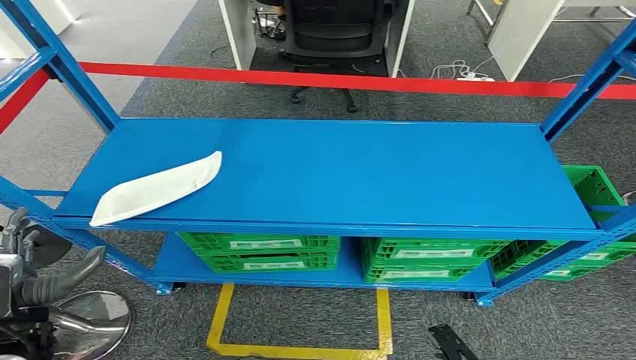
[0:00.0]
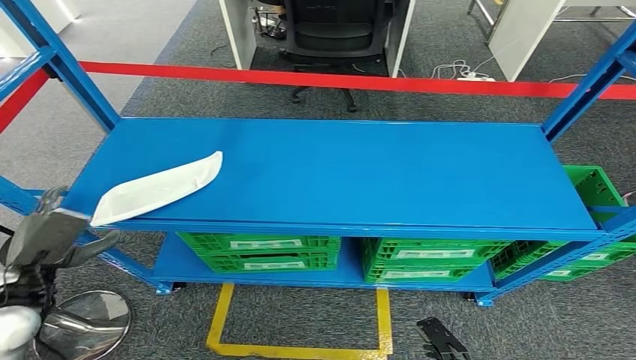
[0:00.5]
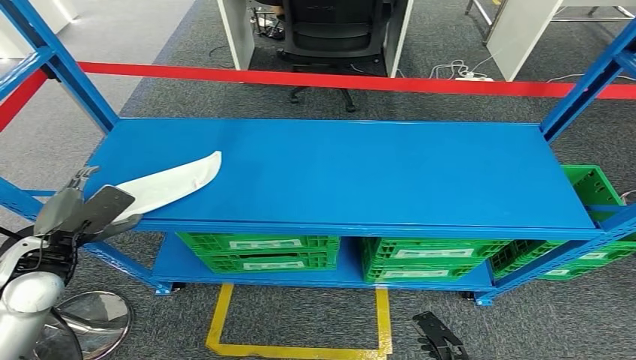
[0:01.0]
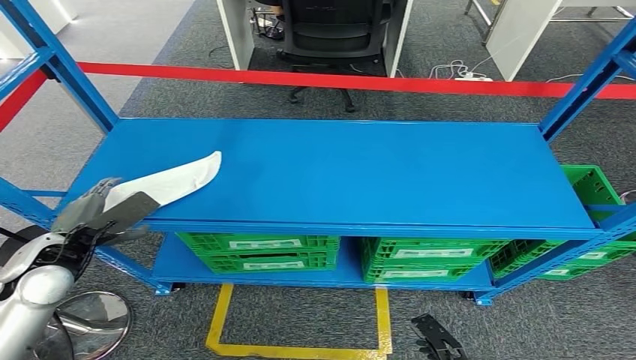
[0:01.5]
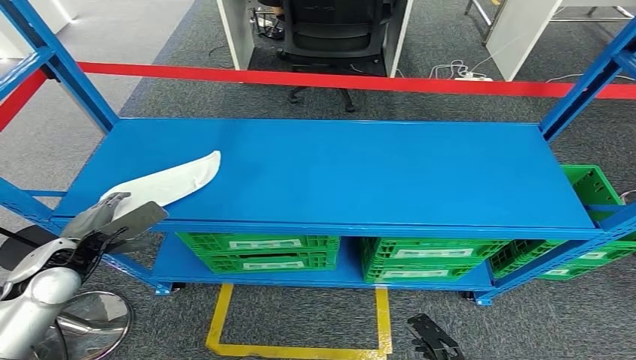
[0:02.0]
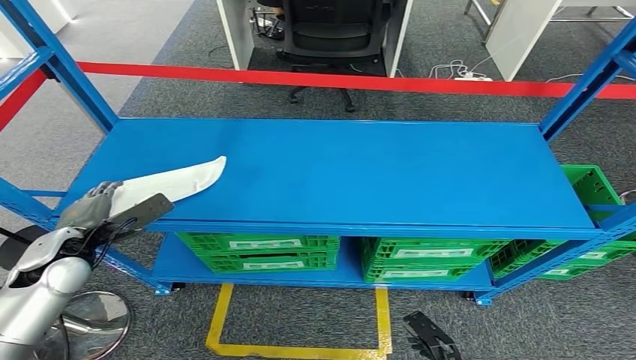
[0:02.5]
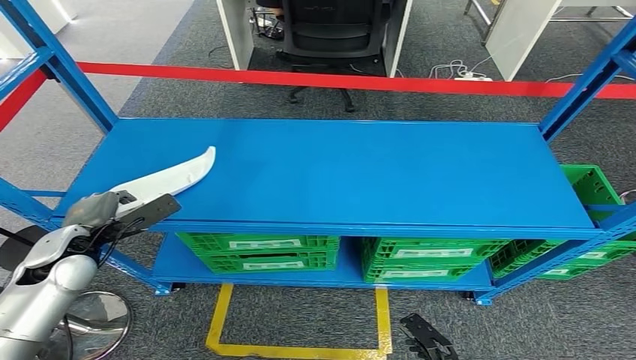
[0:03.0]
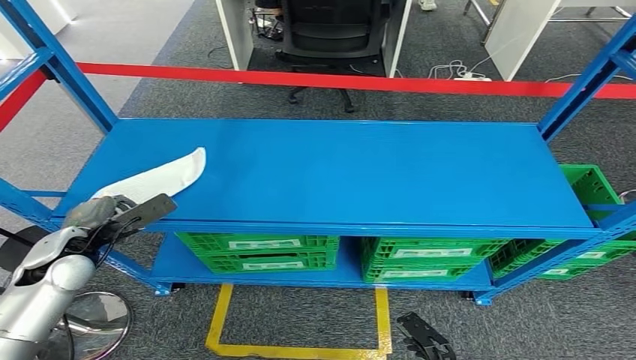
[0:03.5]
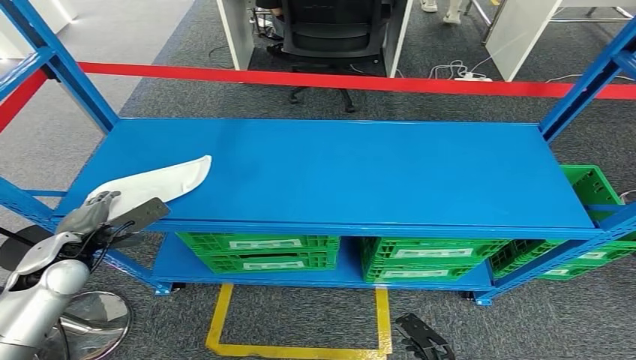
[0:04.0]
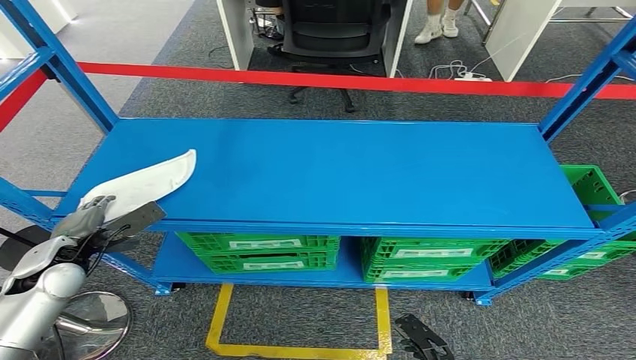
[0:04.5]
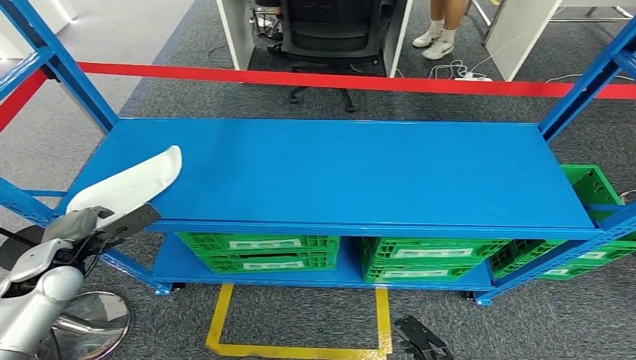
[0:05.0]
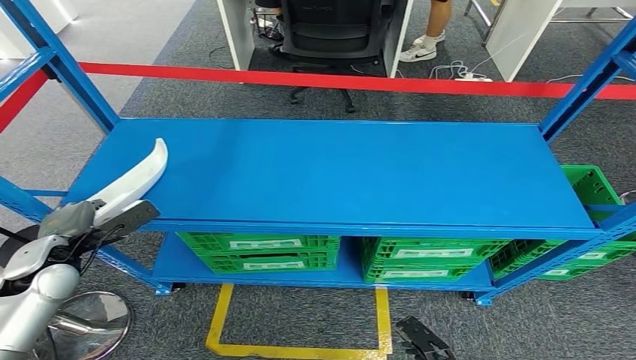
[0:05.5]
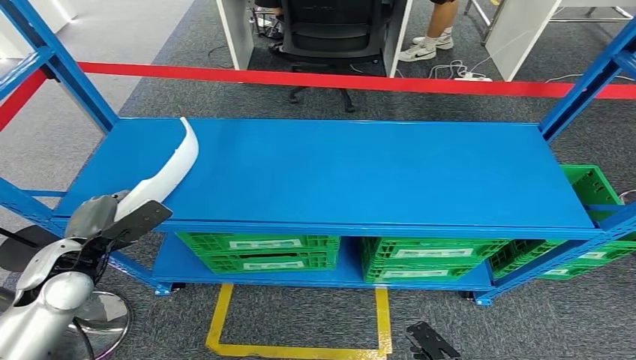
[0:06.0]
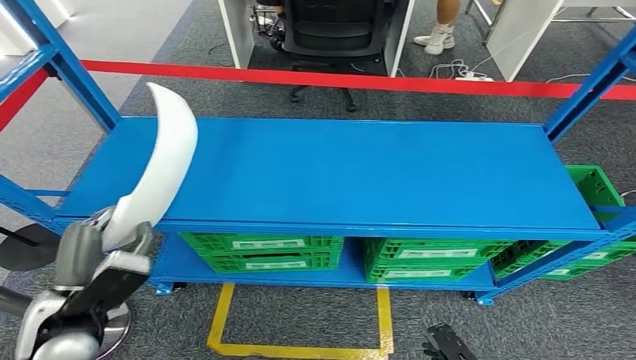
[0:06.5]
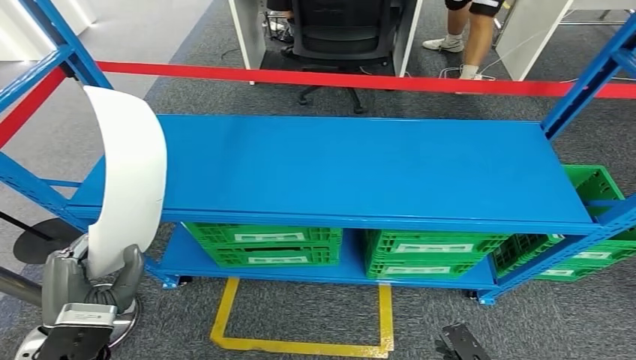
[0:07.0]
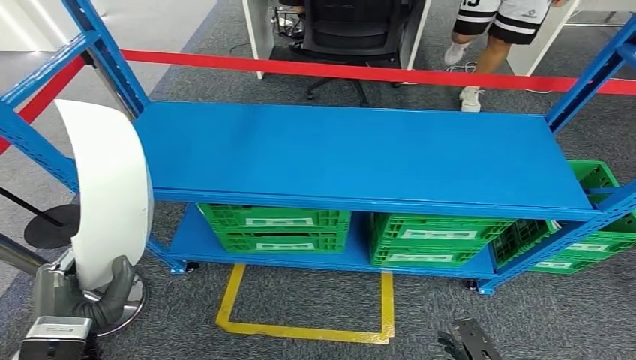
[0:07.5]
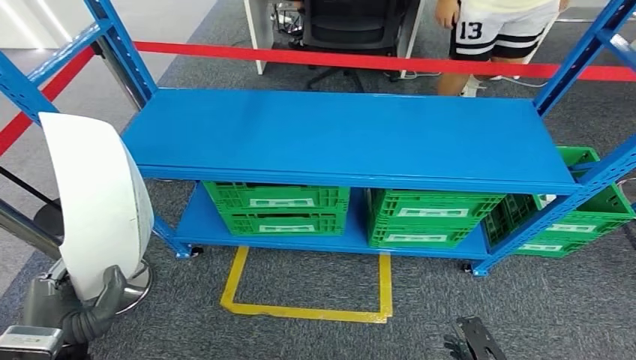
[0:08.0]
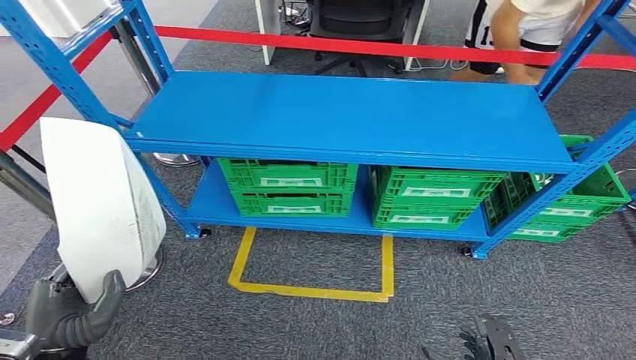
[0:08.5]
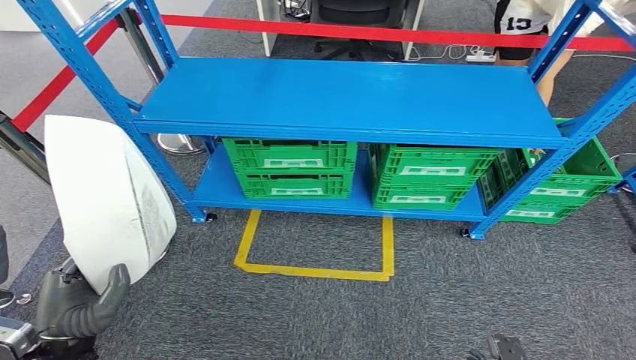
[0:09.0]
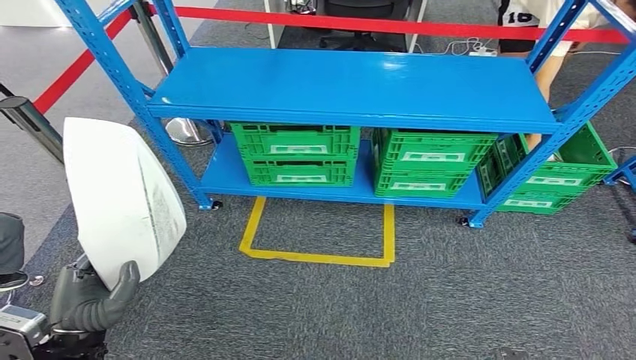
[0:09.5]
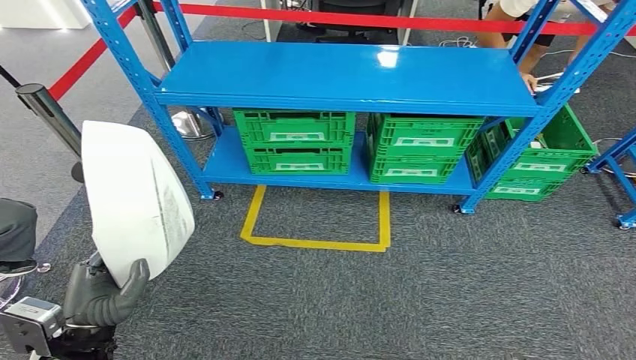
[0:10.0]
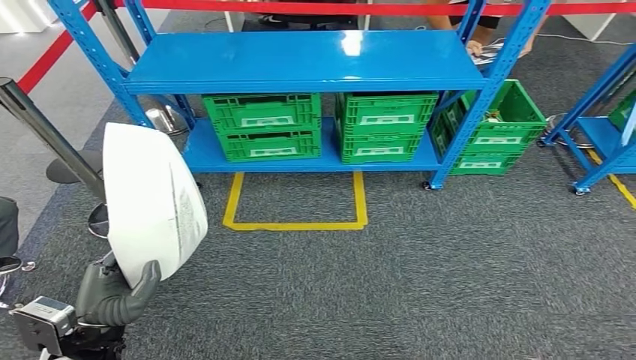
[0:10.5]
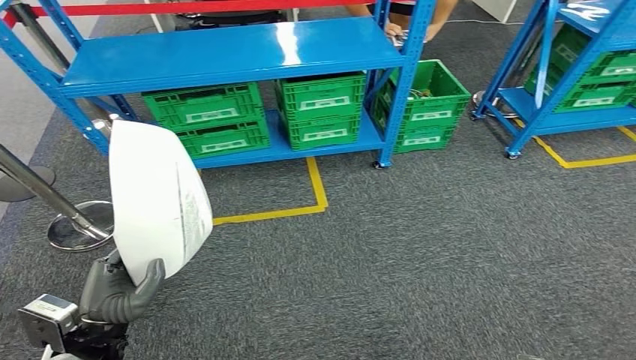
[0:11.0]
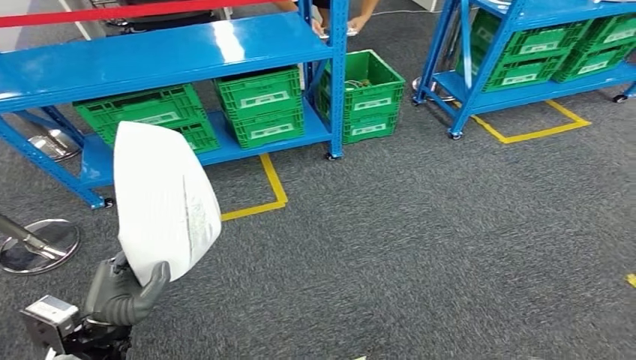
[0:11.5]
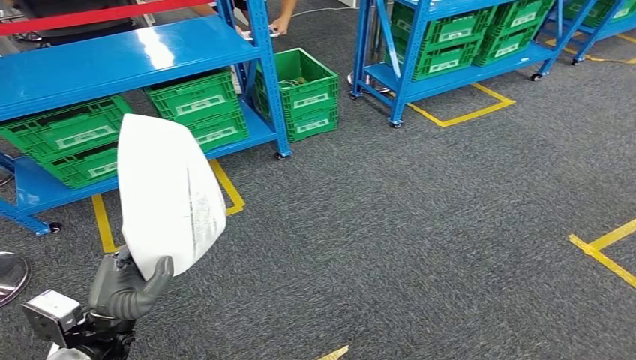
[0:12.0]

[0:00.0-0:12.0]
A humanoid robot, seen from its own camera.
Step, 0:00.0 to 0:05.5: Pick up the small parts from the shelf.
0:02.0 to 0:04.0: The hands stay close to where they were, moving slightly.

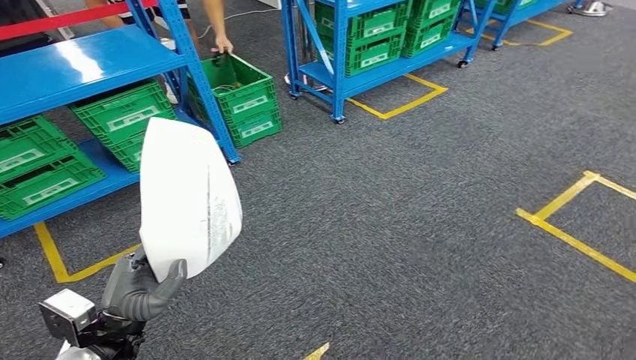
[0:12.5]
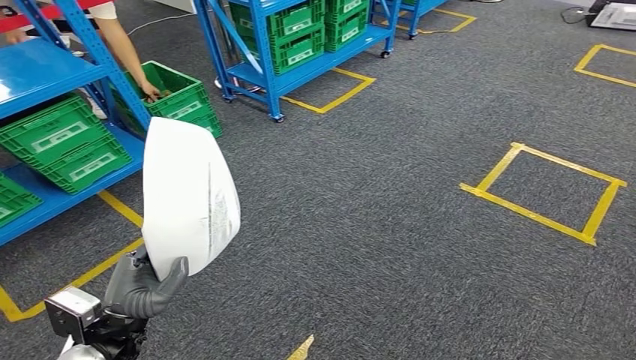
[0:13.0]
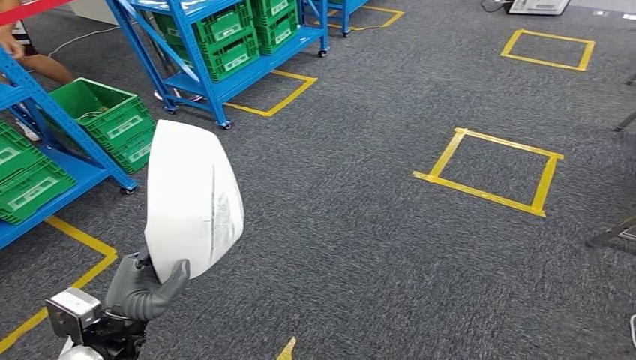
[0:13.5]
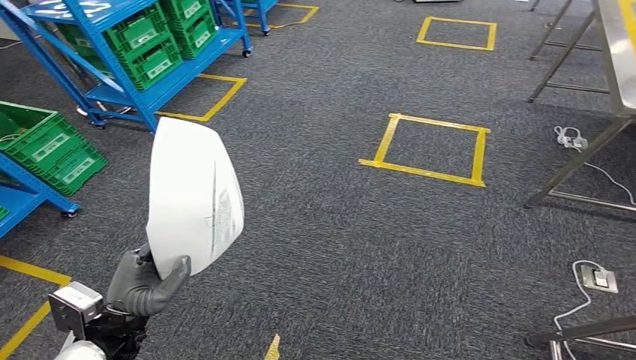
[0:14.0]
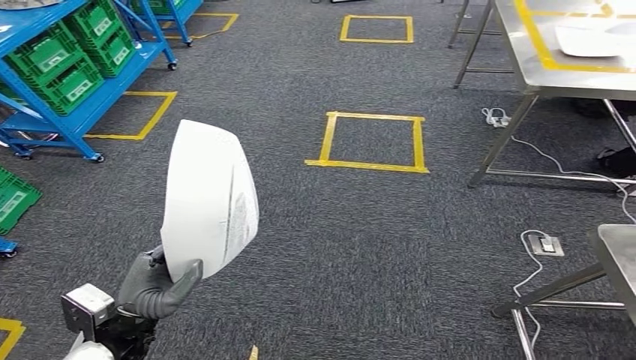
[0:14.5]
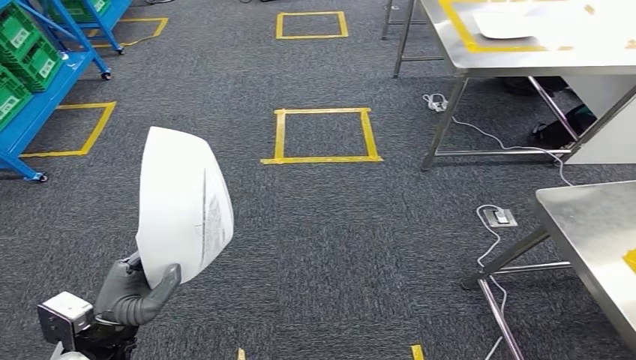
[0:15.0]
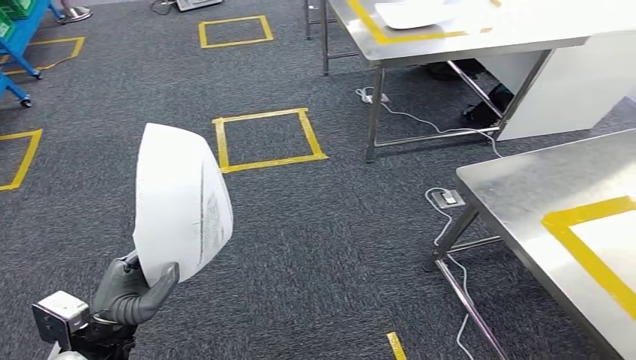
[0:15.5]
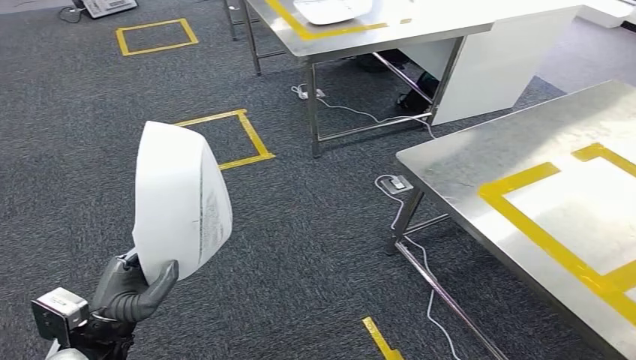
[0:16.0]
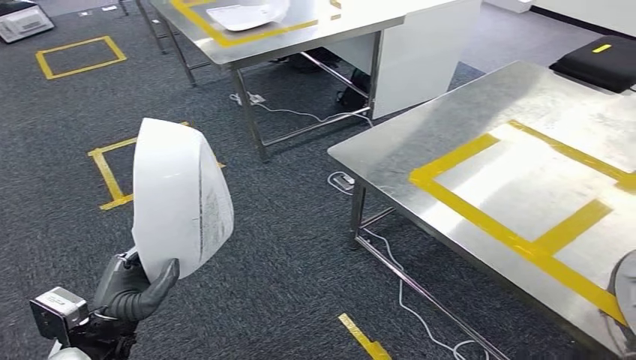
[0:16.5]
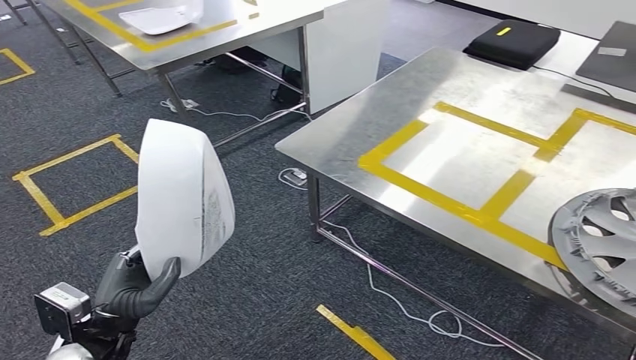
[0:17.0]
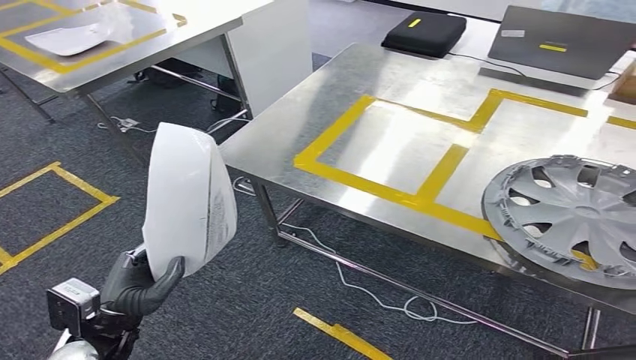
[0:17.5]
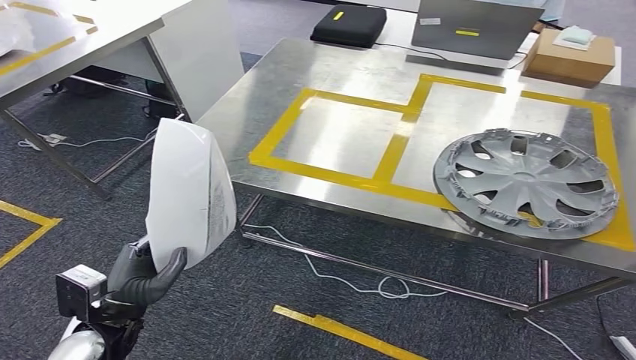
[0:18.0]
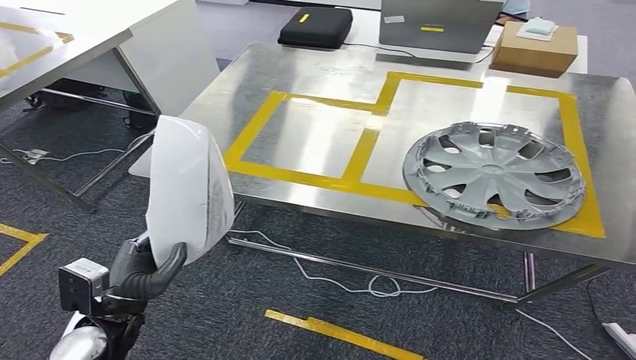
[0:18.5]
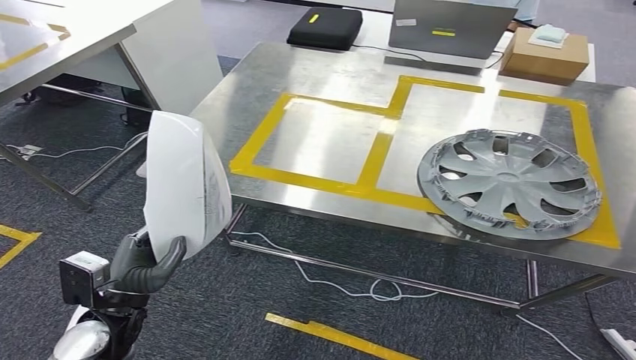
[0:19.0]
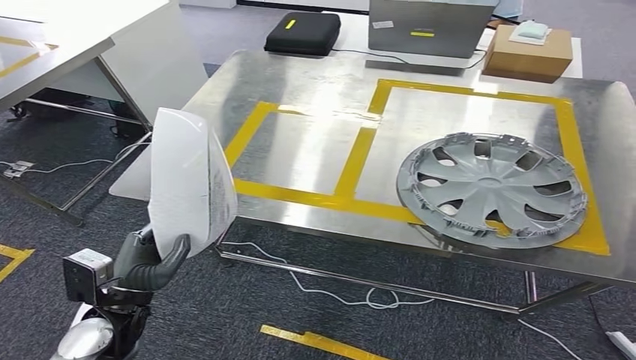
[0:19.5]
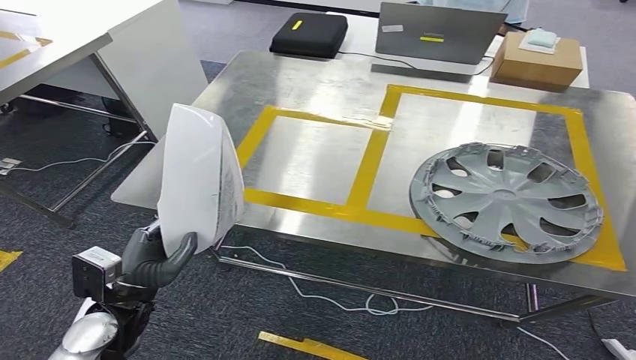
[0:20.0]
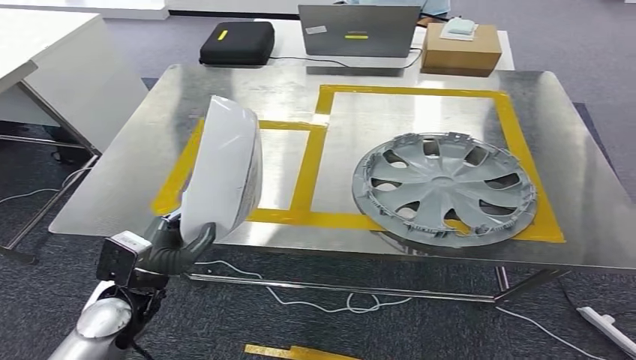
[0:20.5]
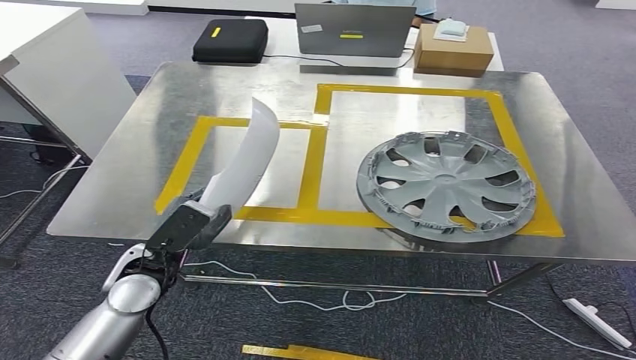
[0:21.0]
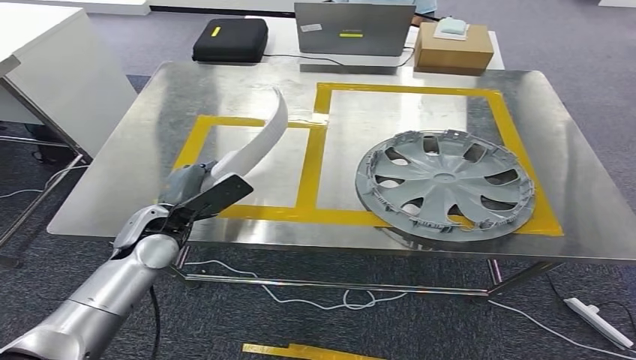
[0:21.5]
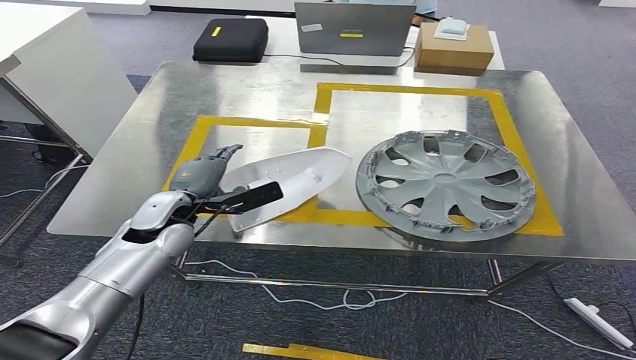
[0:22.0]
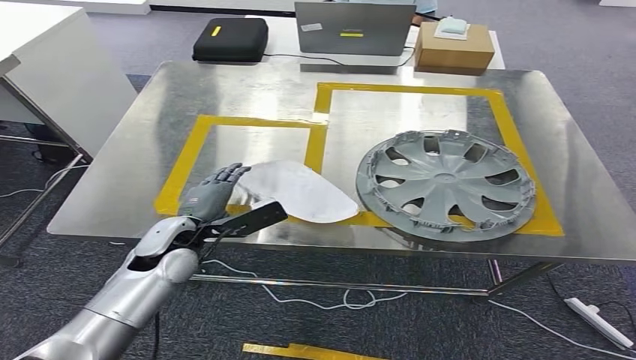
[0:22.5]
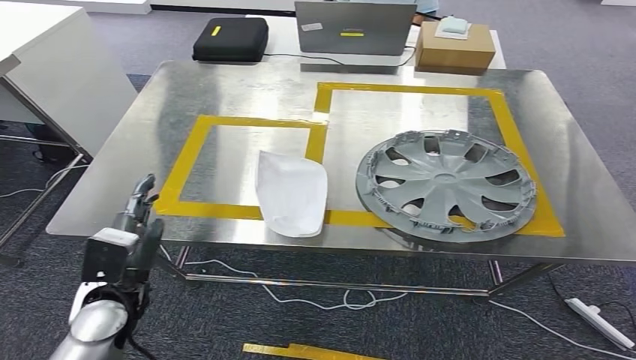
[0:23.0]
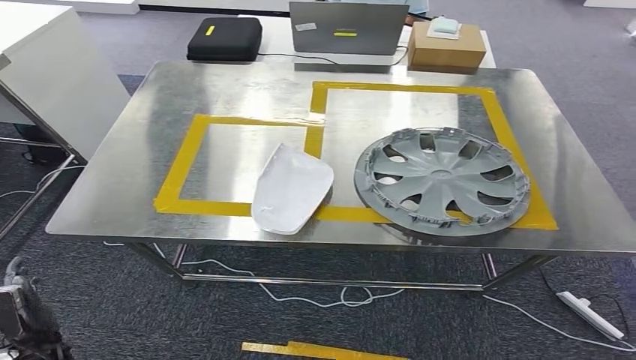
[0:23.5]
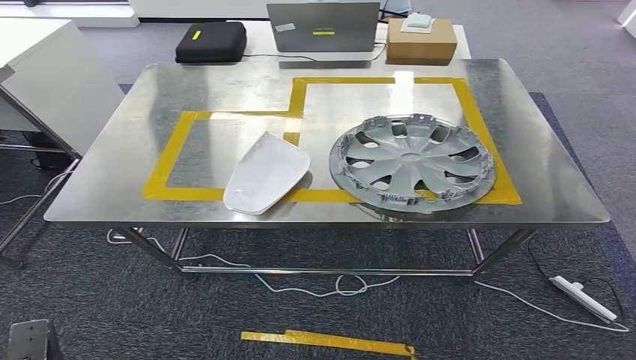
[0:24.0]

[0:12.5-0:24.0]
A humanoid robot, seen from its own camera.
Step, 0:12.5 to 0:17.5: Move the small parts to the workbench.
